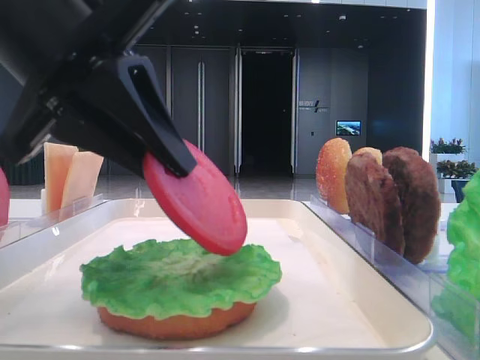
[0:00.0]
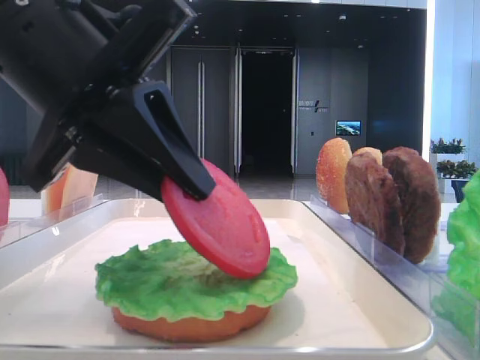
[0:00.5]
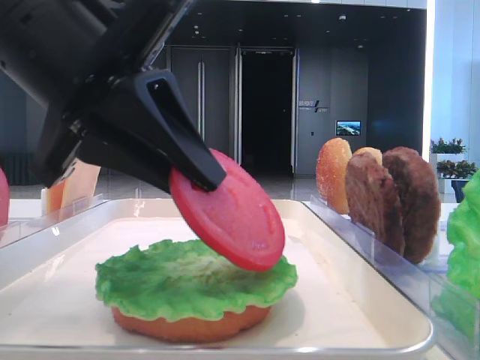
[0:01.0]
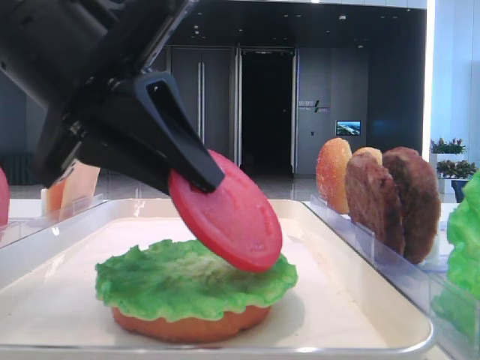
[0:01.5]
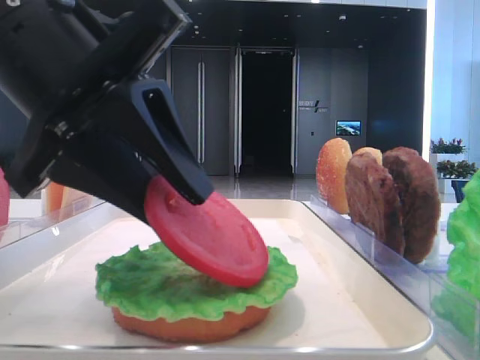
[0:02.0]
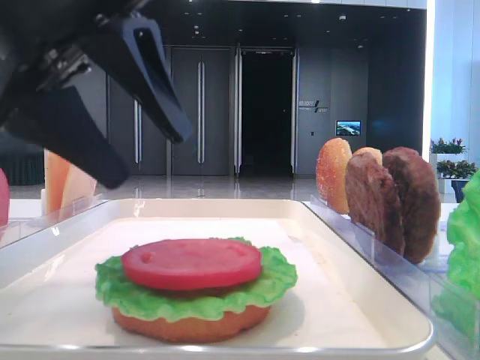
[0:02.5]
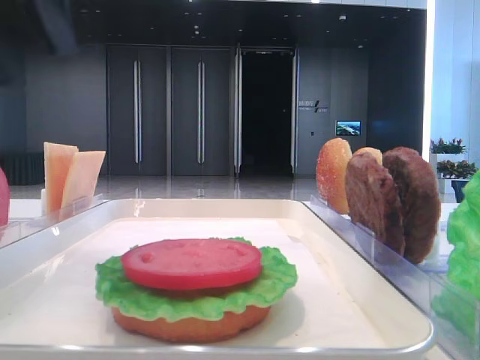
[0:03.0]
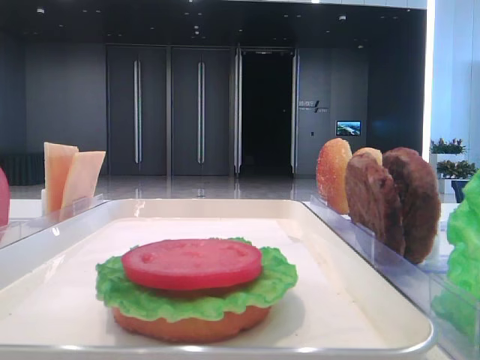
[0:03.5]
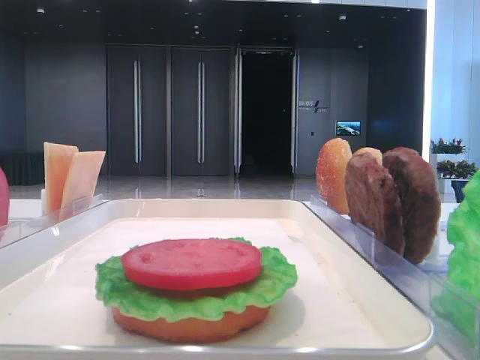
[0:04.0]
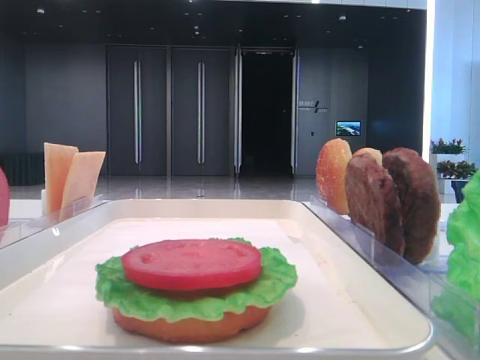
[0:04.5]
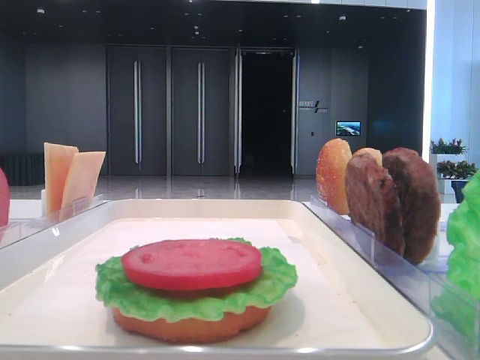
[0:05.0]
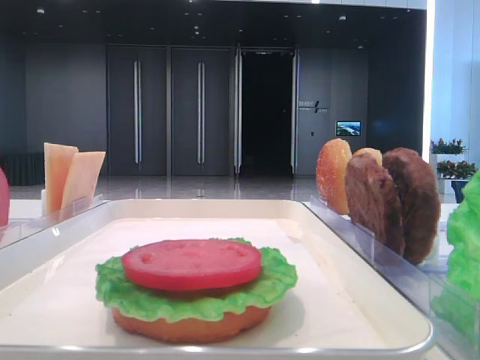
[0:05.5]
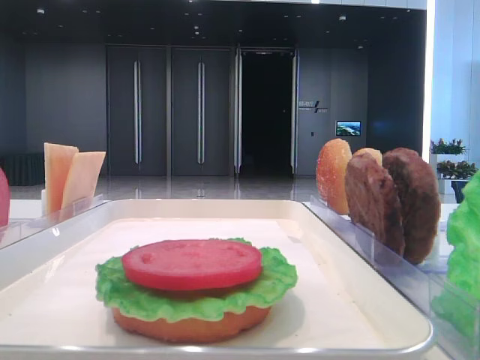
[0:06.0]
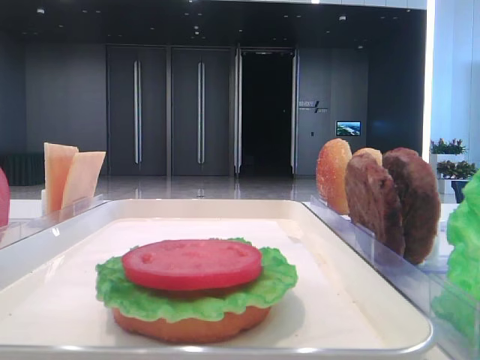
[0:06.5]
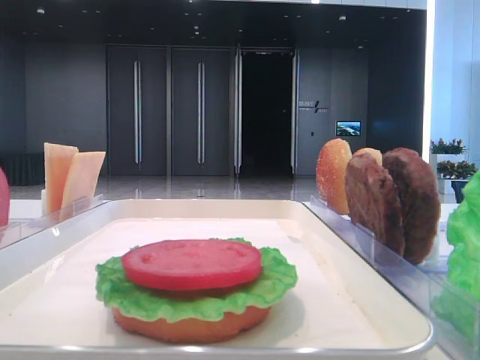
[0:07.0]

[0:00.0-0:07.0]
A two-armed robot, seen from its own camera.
Step, 0:00.0 to 0:02.0: Place the tomato slice on the lettuce leaf with the left hand.
0:00.0 to 0:02.0: The left gripper opens its fingers.
0:02.0 to 0:03.5: The left gripper travels to the left and upward by approximately 20 cm, and opens up.

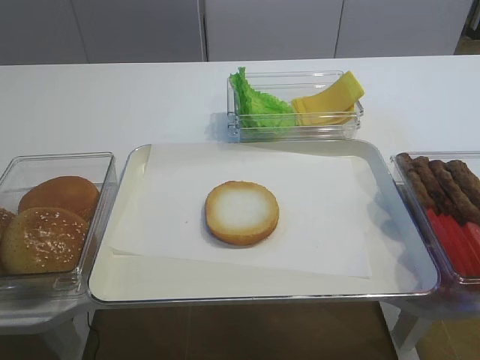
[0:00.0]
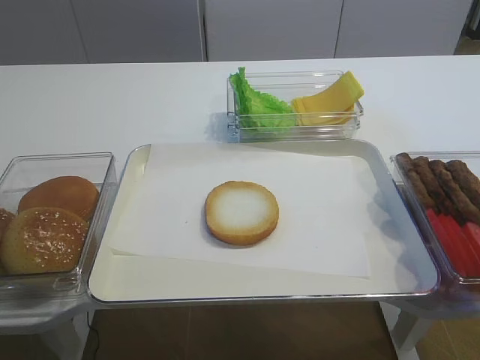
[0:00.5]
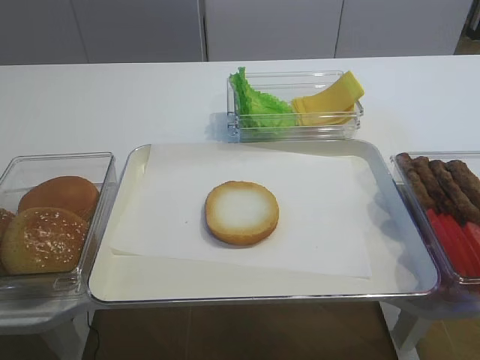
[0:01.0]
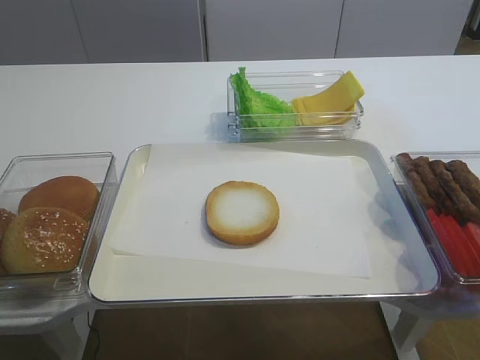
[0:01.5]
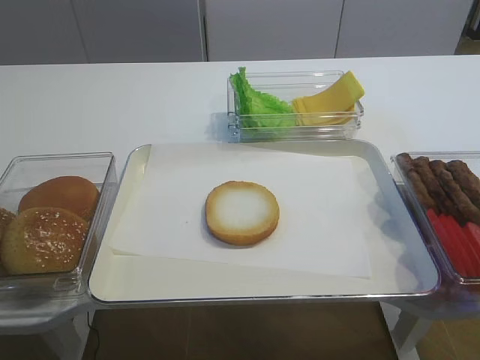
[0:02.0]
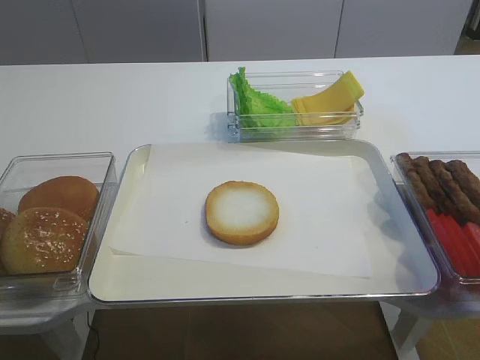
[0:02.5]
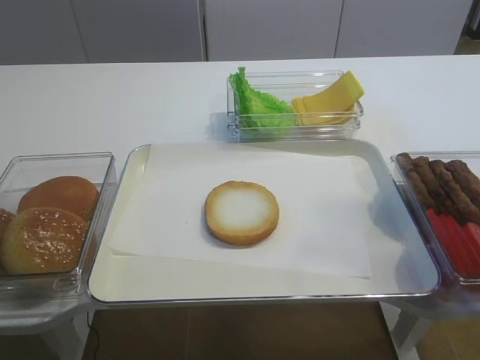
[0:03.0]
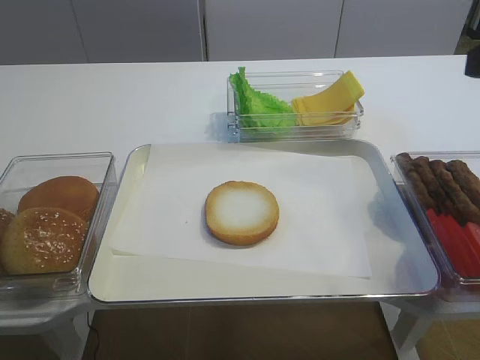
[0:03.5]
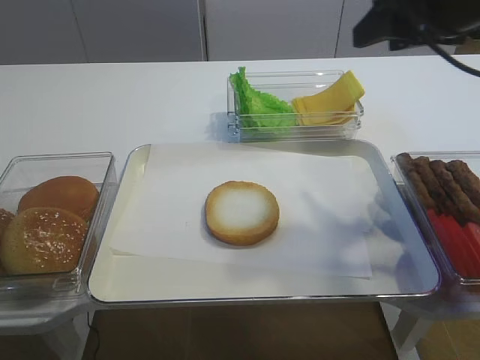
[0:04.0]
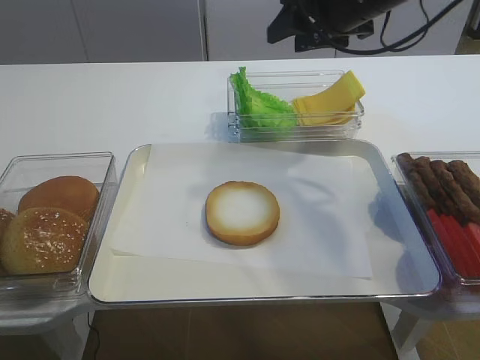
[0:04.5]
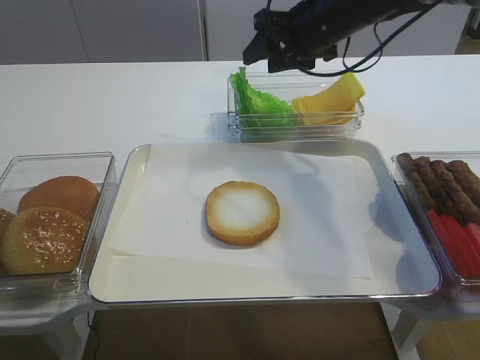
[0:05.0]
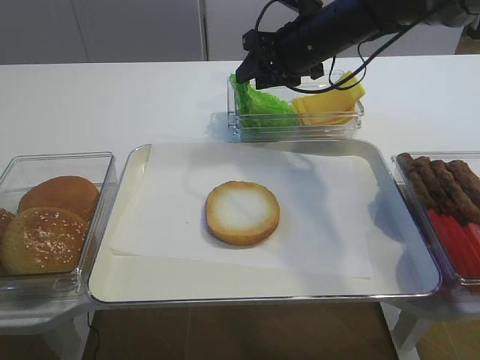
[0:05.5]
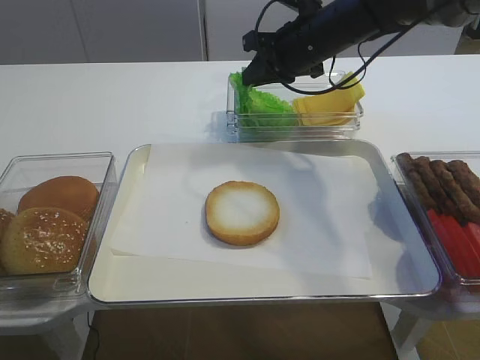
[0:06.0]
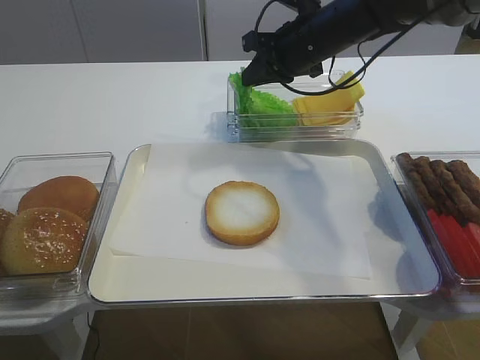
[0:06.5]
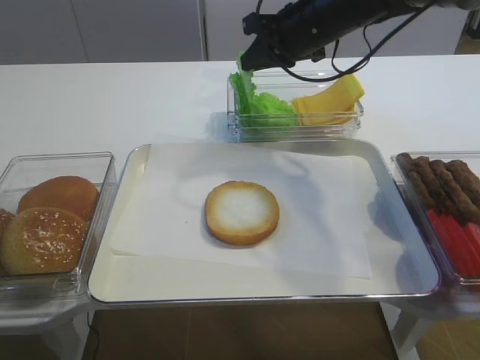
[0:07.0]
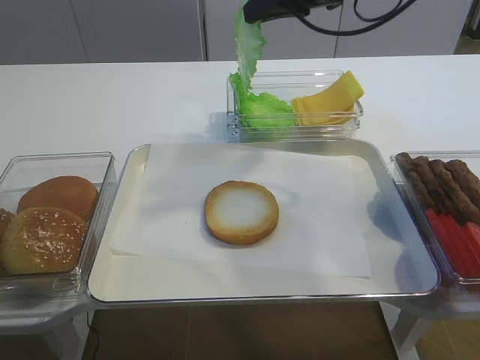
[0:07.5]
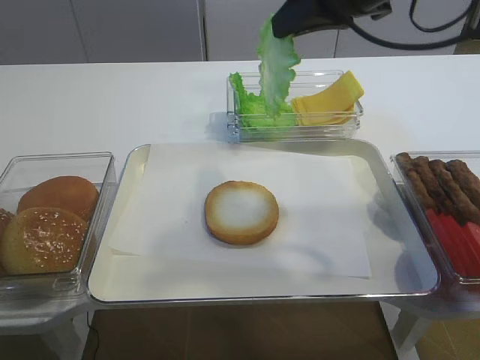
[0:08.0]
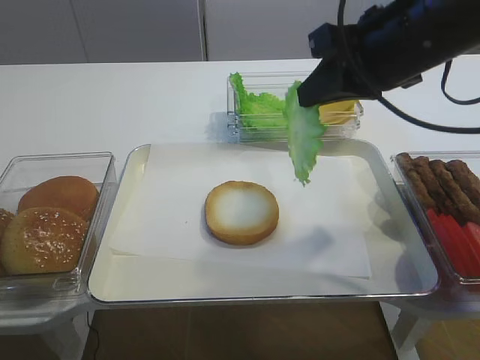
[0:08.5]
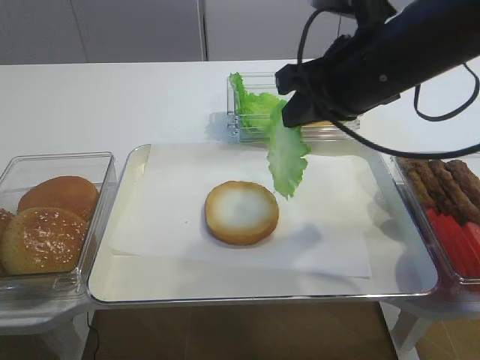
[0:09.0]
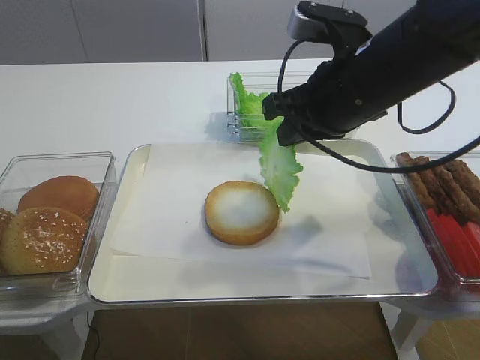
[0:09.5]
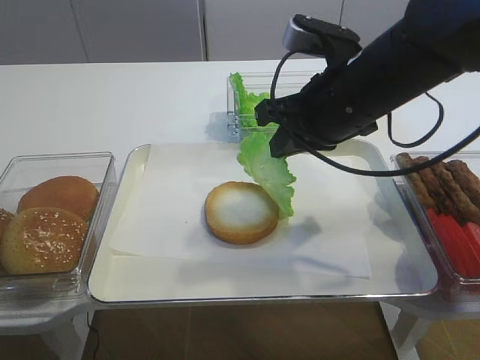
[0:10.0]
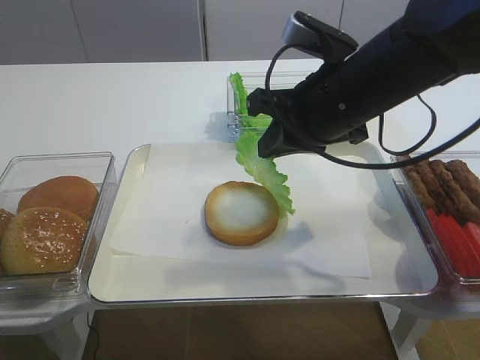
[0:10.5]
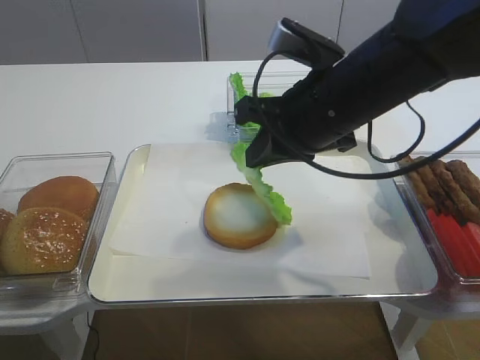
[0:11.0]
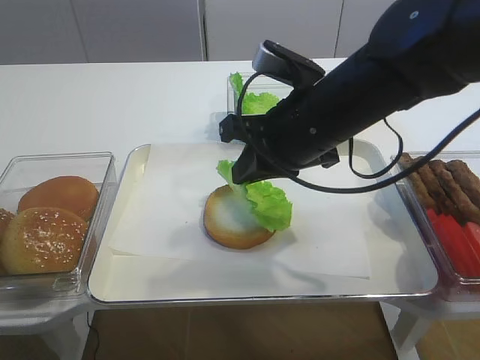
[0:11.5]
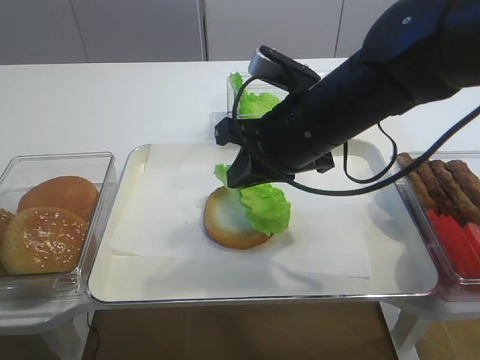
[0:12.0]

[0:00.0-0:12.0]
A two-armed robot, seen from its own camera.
Step, 0:00.0 to 0:07.5: Pick up the lettuce leaf with the right gripper.
0:02.0 to 0:04.0: The right gripper travels forward by roughly 30 cm, and opens up.
0:04.0 to 0:06.0: The right gripper is displaced forward, to the left and downward by about 20 cm, and closes.
0:06.0 to 0:08.0: The right gripper moves backward and upward, roughly 15 cm.
0:08.0 to 0:10.0: The right gripper shifts approximately 10 cm downward.
0:10.0 to 0:12.0: There are only small adjustments of the grippers.

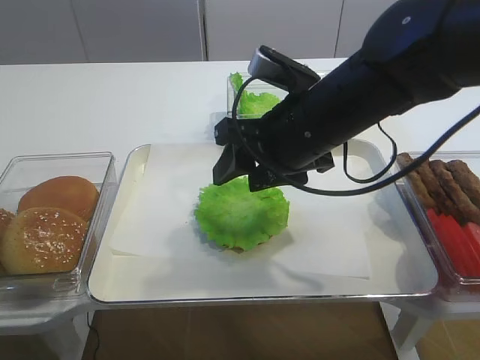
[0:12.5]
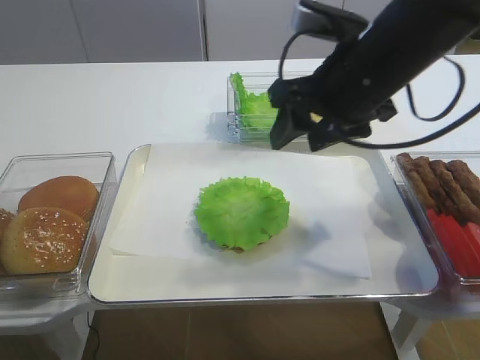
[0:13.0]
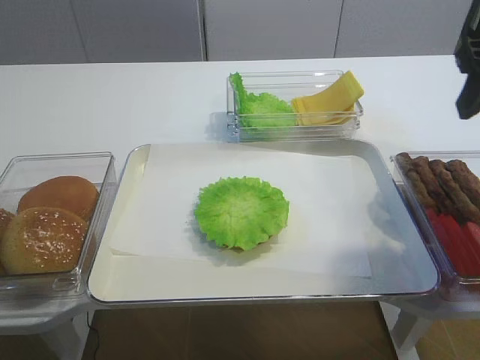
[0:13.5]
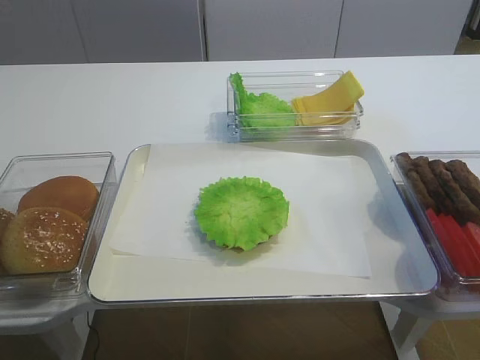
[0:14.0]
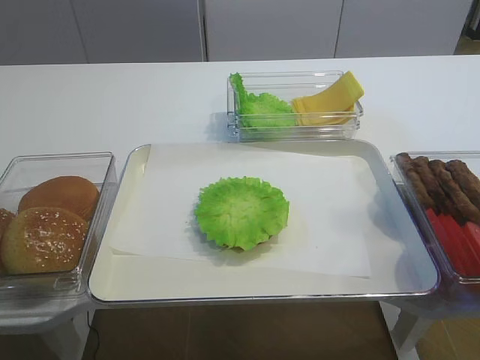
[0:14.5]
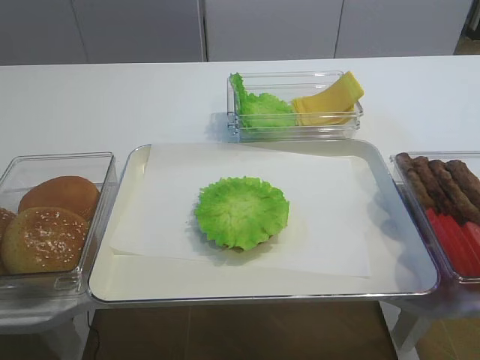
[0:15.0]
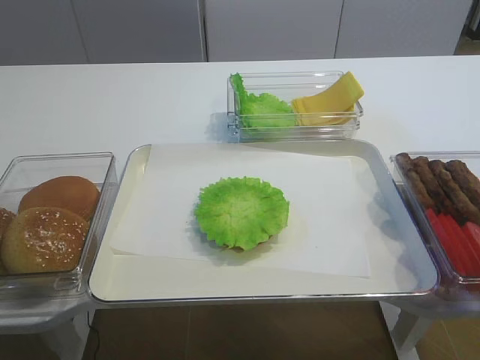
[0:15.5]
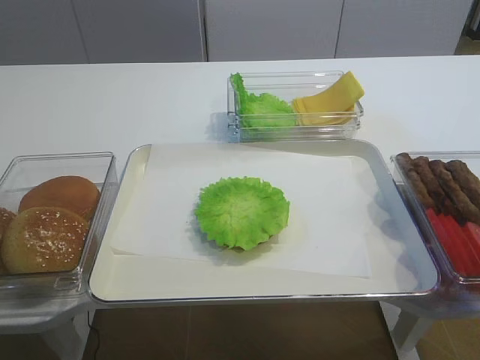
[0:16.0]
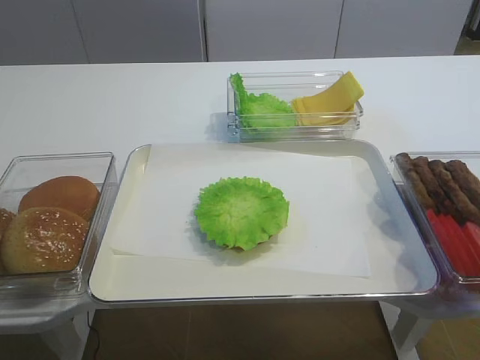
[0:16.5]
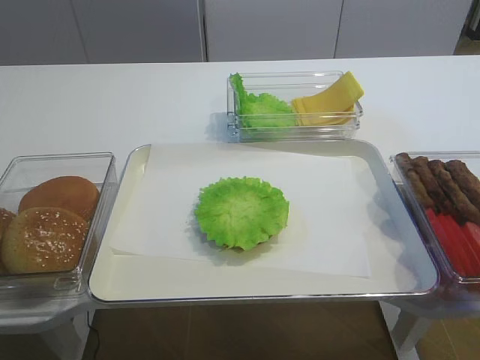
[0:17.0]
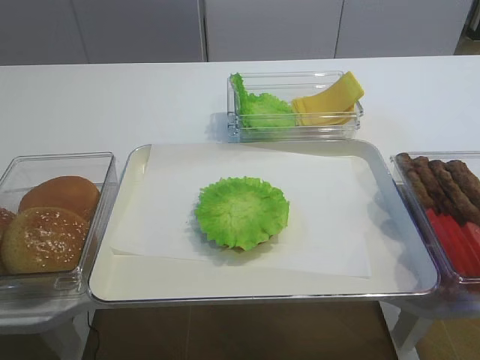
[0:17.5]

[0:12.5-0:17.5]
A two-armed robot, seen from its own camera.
0:12.5 to 0:15.0: The right gripper is displaced backward and to the right by approximately 35 cm.

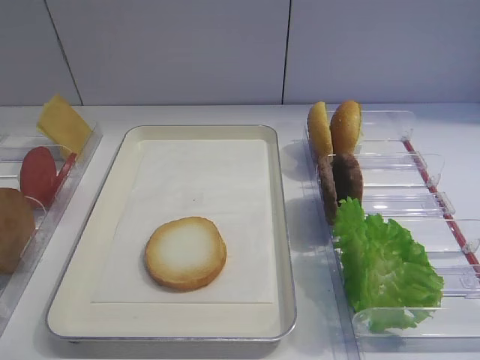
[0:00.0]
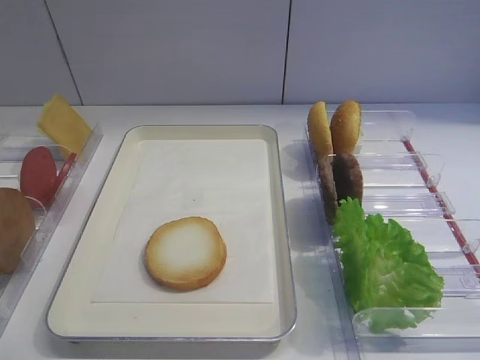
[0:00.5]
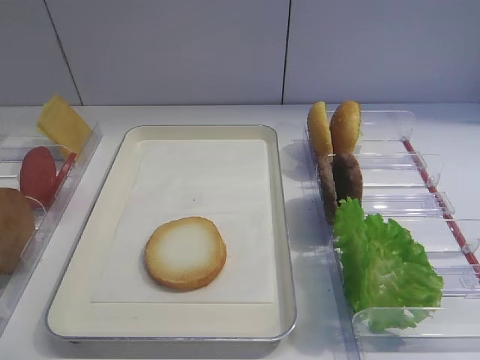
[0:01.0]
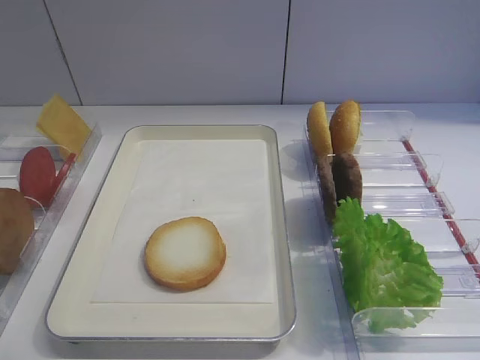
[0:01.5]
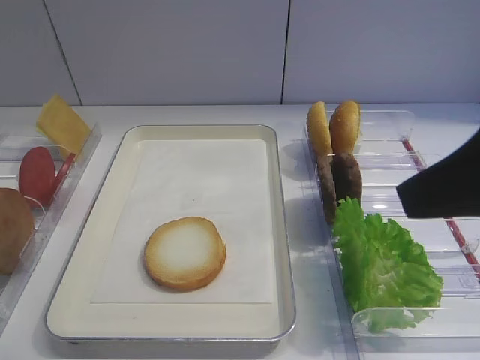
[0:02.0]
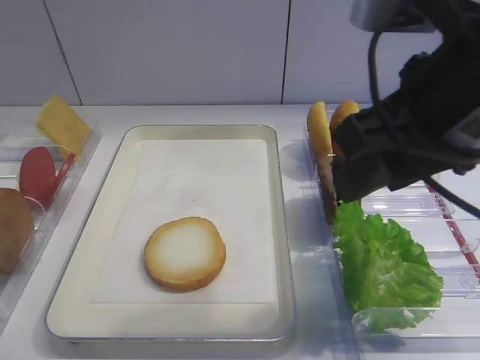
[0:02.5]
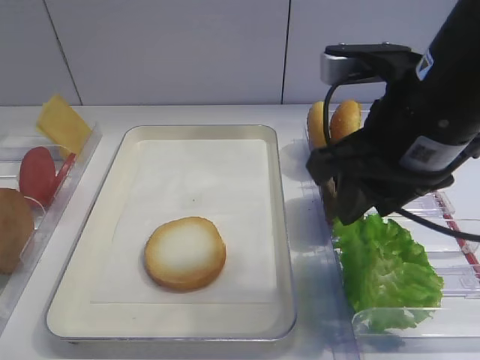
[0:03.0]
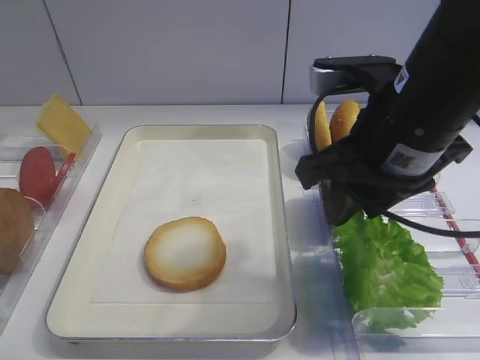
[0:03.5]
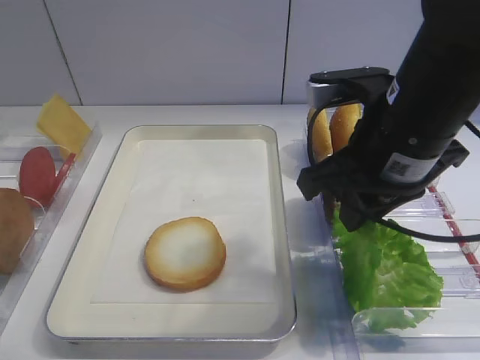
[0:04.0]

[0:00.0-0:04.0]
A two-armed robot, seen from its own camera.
0:02.0 to 0:04.0: The right gripper moves forward, downward and to the left, roughly 15 cm, and closes up.
